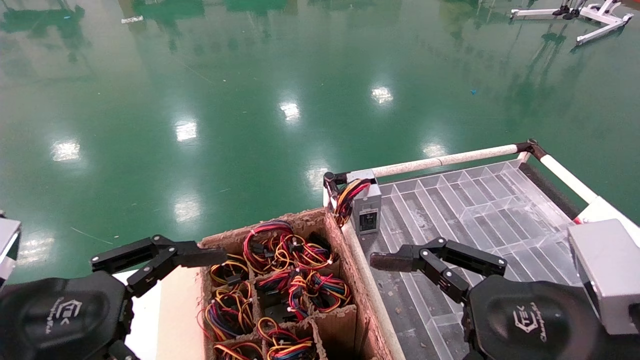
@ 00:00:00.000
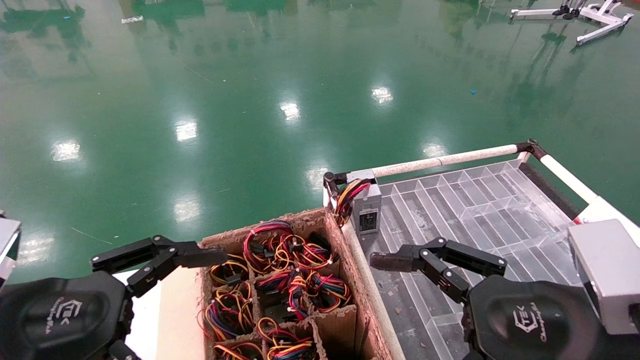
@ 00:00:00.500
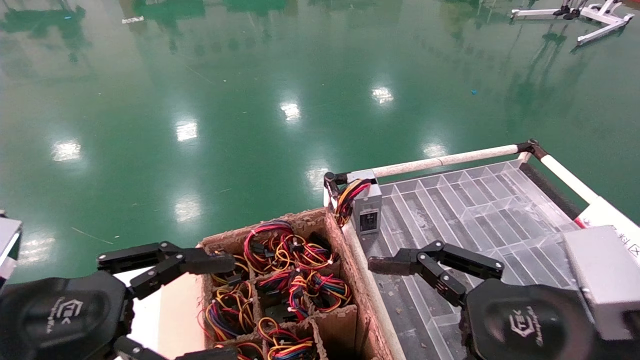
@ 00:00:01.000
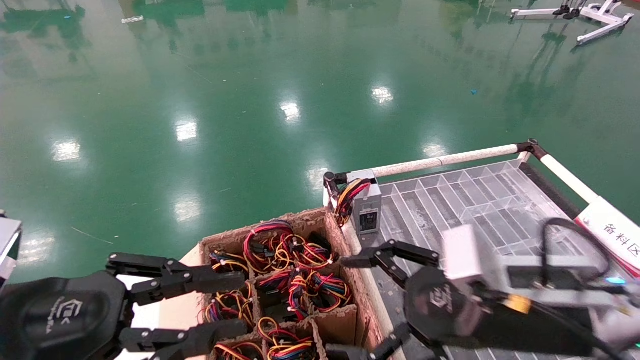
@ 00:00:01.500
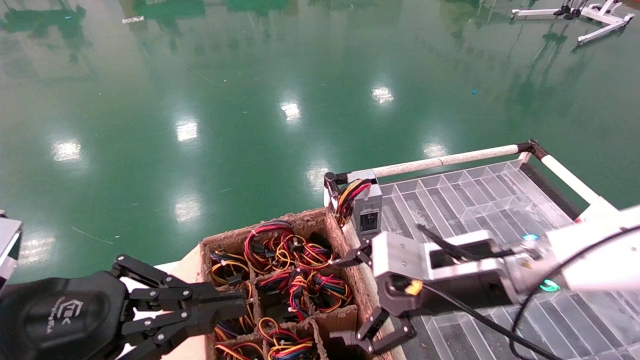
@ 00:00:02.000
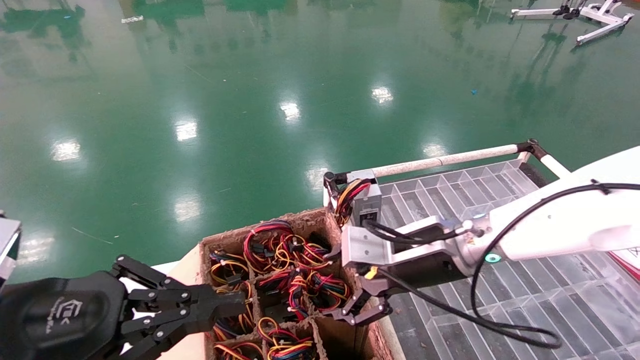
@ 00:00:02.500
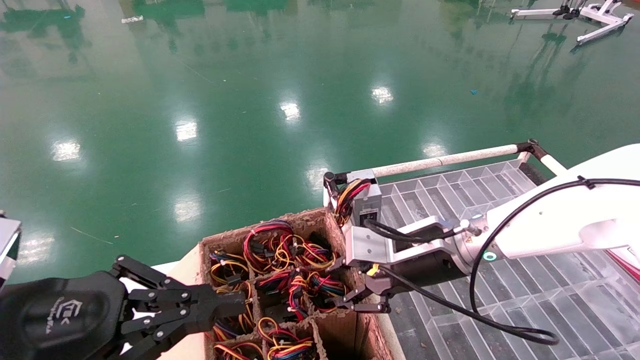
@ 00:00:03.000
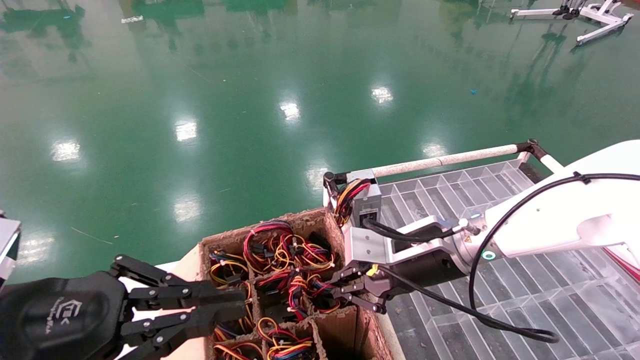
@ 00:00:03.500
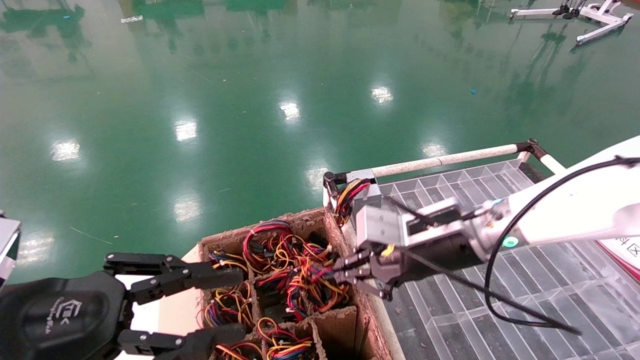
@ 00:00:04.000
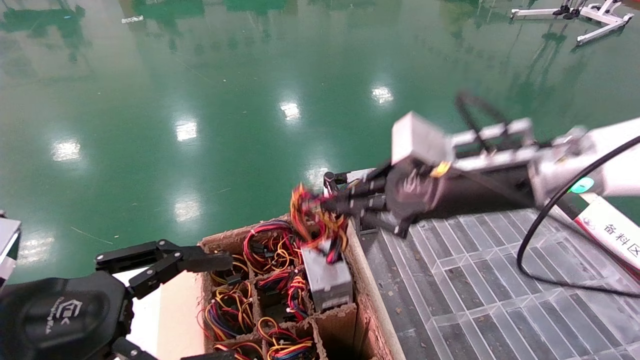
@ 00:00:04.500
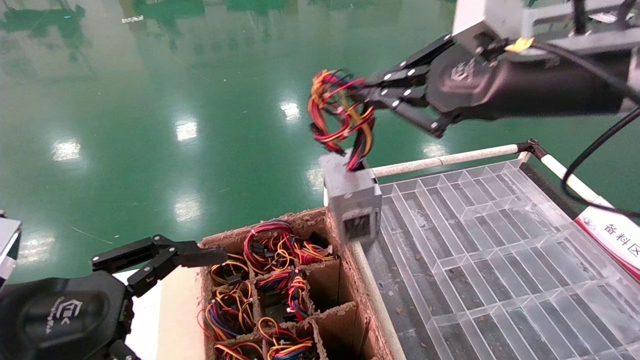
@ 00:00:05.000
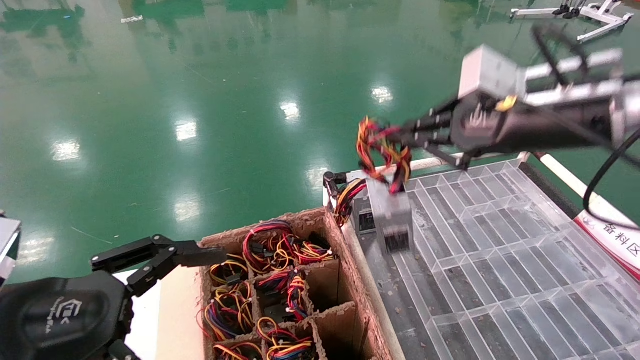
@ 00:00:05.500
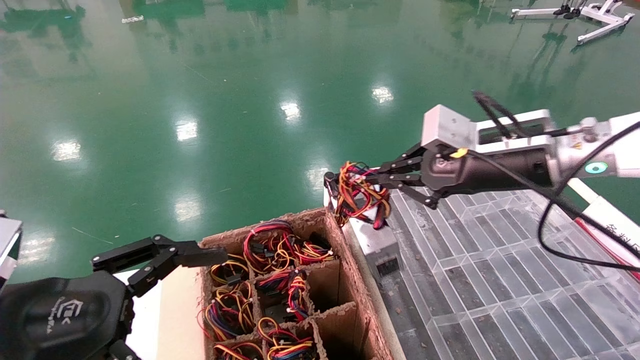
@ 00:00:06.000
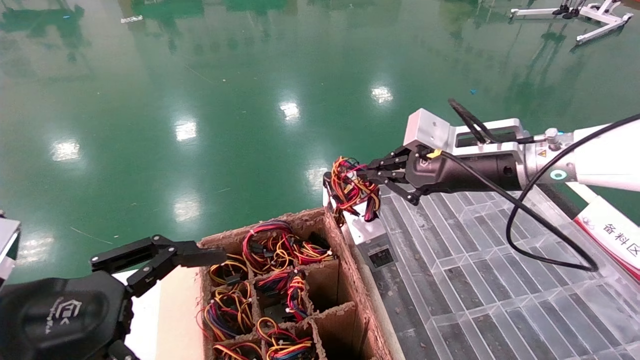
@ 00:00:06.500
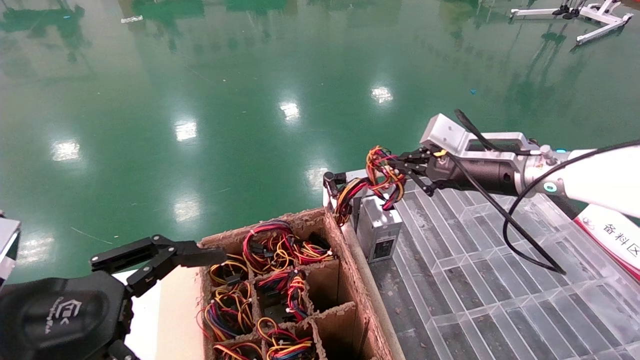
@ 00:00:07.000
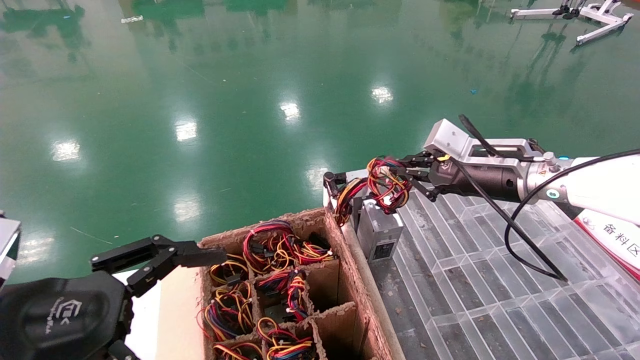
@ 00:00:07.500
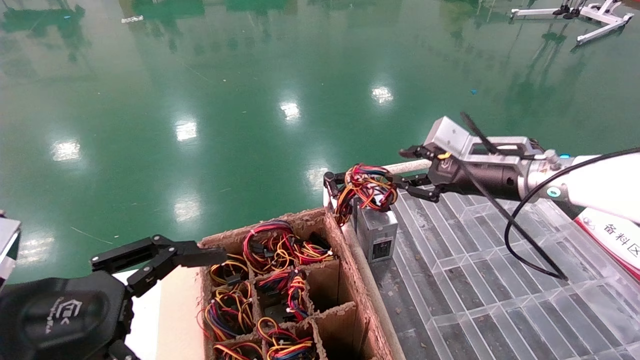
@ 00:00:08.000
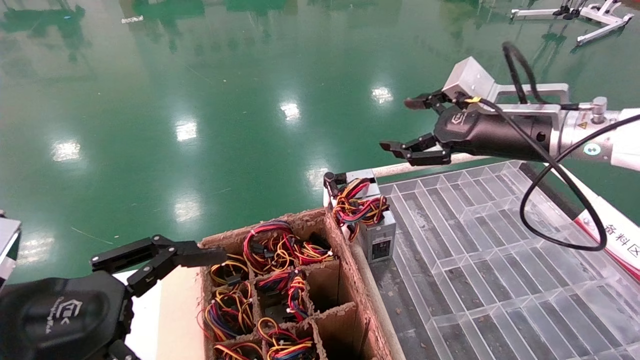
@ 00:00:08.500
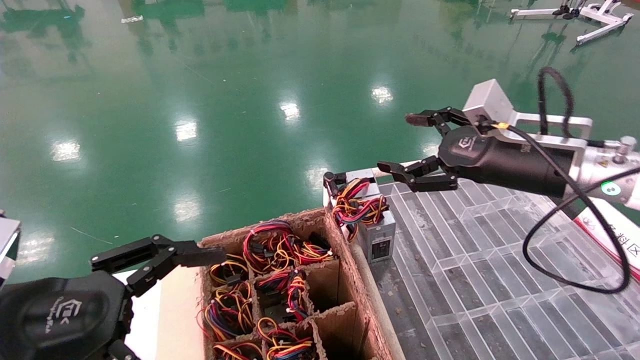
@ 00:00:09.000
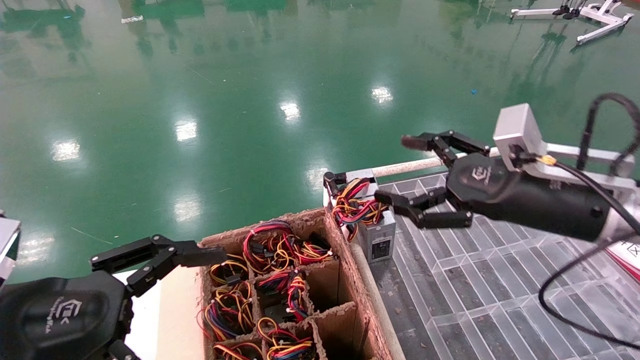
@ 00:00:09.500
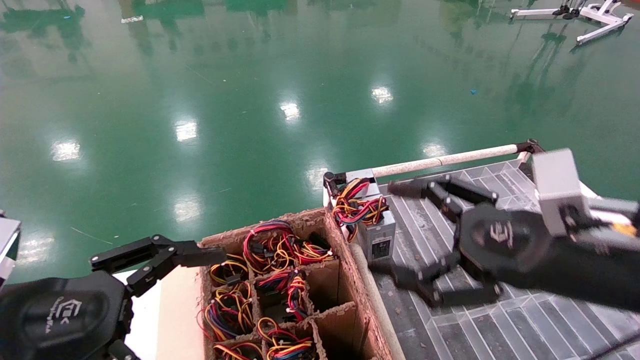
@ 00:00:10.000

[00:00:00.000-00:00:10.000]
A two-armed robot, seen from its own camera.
Step, 00:00:02.500 to 00:00:03.500: Grab and lift the power supply from the large box.
Step, 00:00:04.000 to 00:00:07.500: Place the power supply on the operating table.
00:00:00.000 to 00:00:02.000: The right gripper goes about 15 cm forward and to the left. Meanwhile the left gripper closes its fingers.
00:00:02.000 to 00:00:04.000: The right gripper closes its fingers.
00:00:04.000 to 00:00:06.000: The left gripper opens up. Meanwhile the right gripper goes some 10 cm upward and to the right.
00:00:06.000 to 00:00:08.000: The right gripper heads forward, covering about 5 cm.
00:00:08.000 to 00:00:10.000: The right gripper heads backward, covering approximately 15 cm, and opens.
